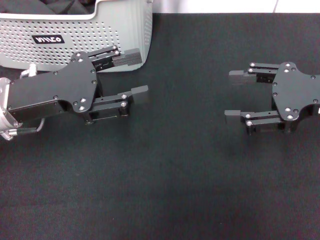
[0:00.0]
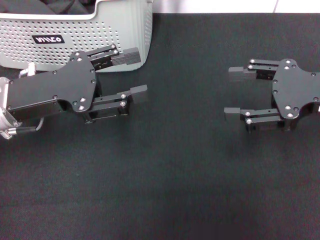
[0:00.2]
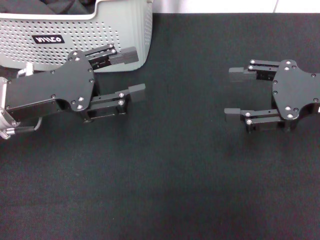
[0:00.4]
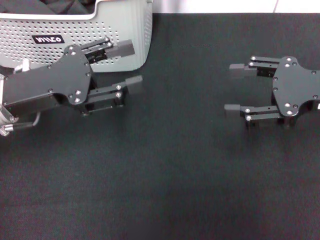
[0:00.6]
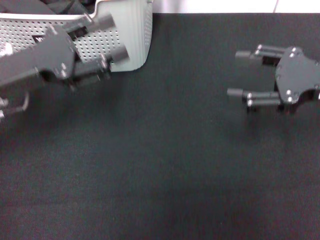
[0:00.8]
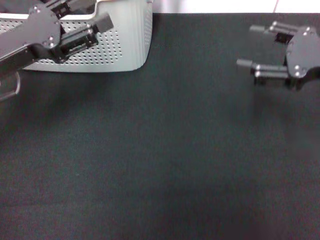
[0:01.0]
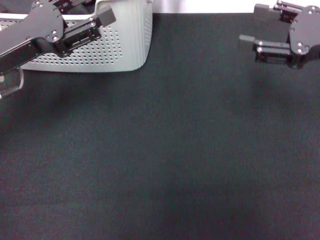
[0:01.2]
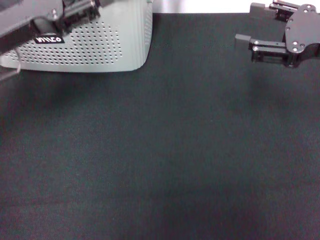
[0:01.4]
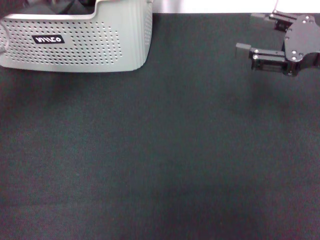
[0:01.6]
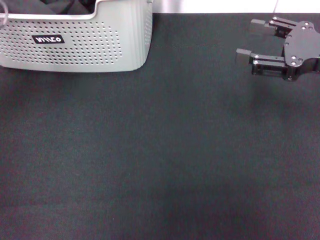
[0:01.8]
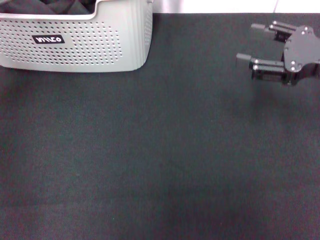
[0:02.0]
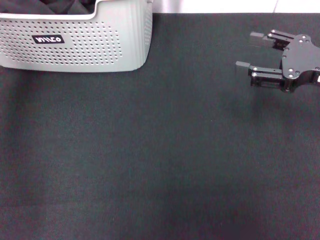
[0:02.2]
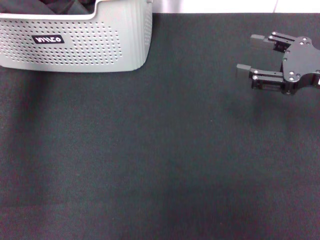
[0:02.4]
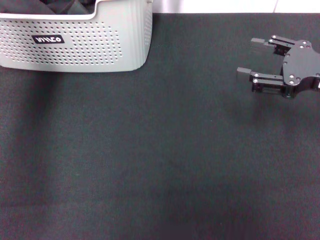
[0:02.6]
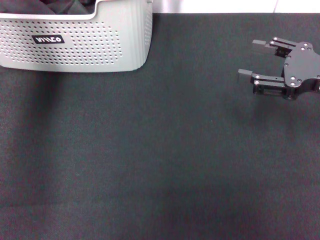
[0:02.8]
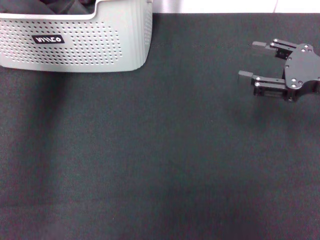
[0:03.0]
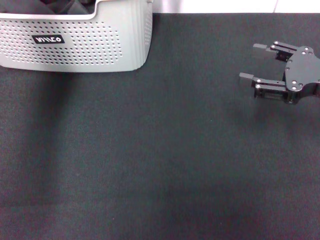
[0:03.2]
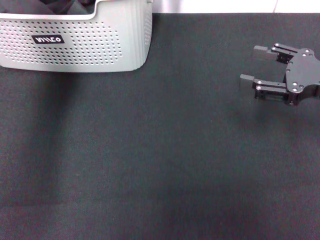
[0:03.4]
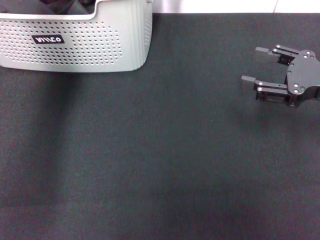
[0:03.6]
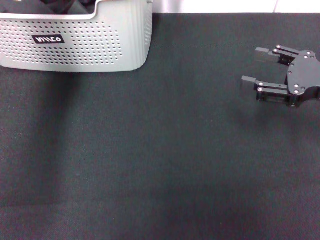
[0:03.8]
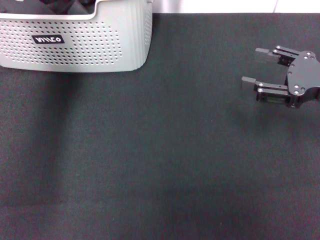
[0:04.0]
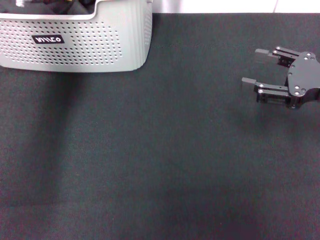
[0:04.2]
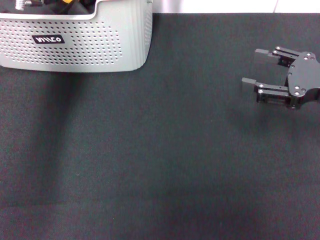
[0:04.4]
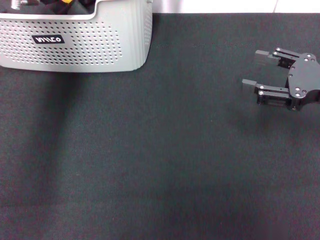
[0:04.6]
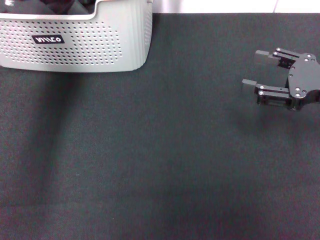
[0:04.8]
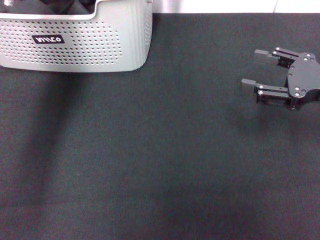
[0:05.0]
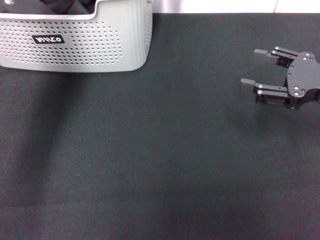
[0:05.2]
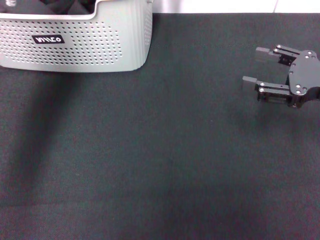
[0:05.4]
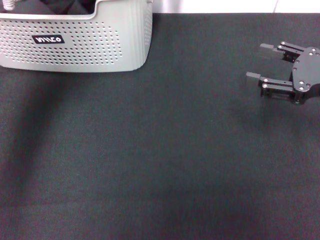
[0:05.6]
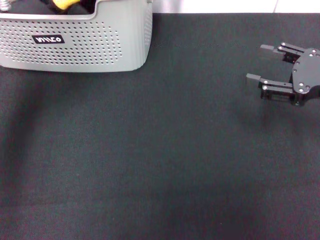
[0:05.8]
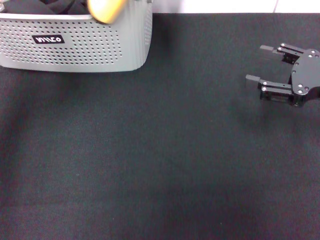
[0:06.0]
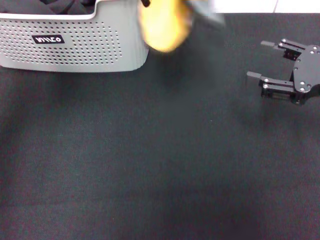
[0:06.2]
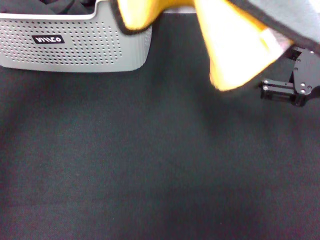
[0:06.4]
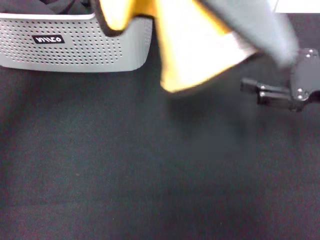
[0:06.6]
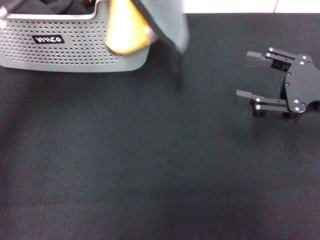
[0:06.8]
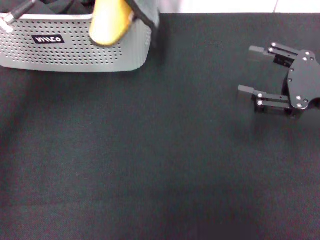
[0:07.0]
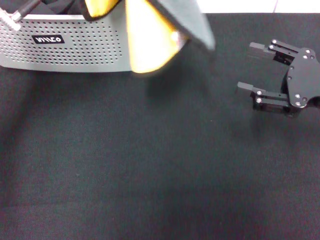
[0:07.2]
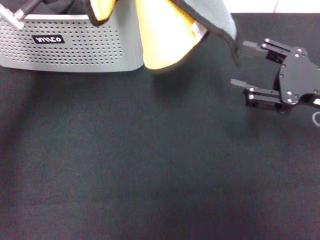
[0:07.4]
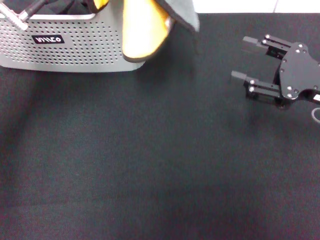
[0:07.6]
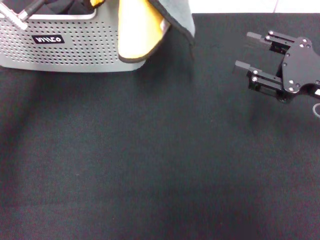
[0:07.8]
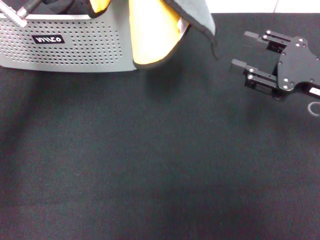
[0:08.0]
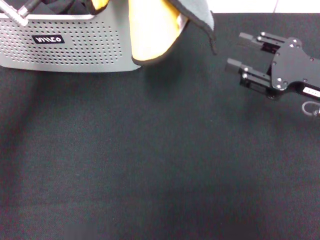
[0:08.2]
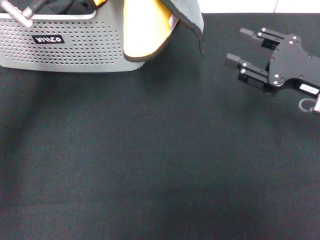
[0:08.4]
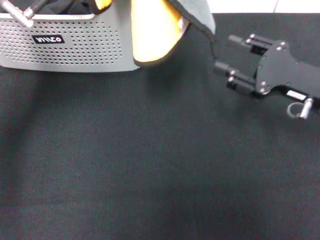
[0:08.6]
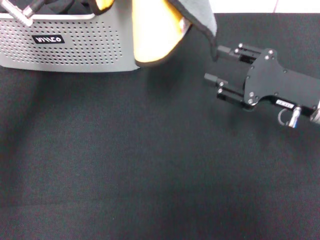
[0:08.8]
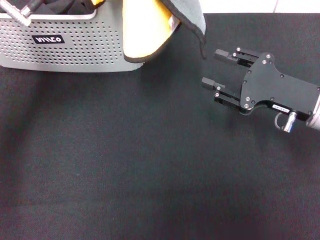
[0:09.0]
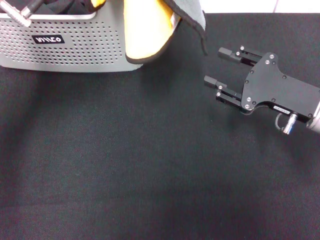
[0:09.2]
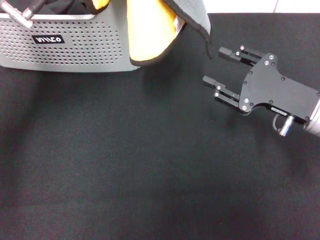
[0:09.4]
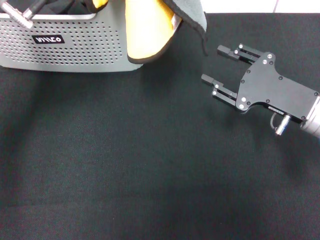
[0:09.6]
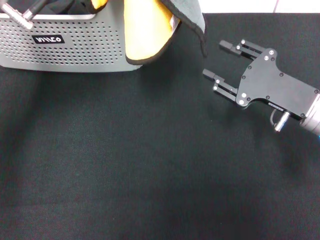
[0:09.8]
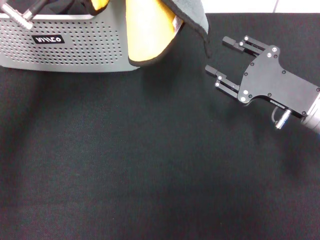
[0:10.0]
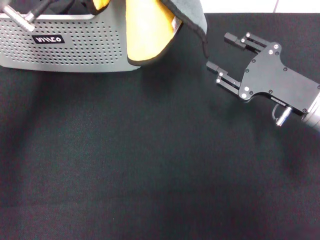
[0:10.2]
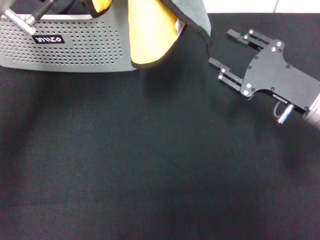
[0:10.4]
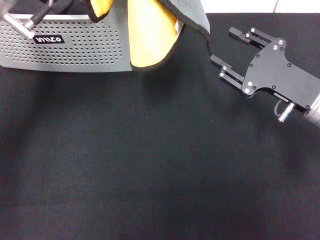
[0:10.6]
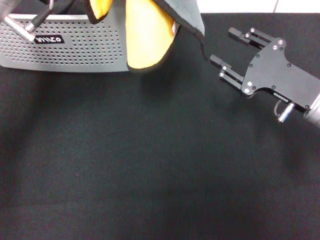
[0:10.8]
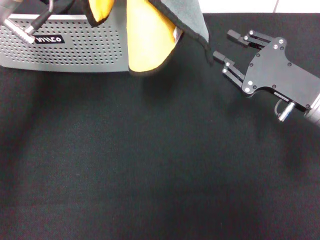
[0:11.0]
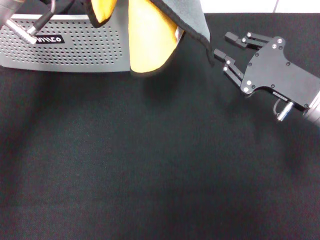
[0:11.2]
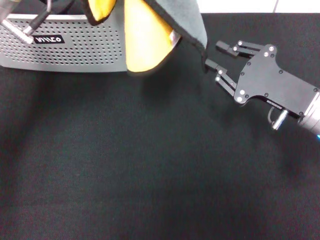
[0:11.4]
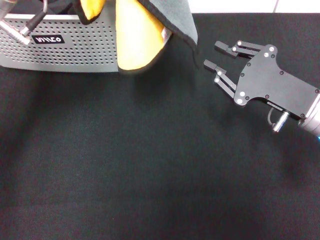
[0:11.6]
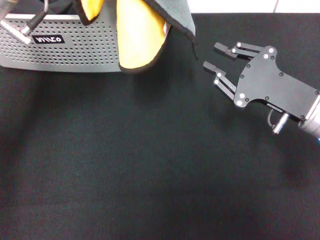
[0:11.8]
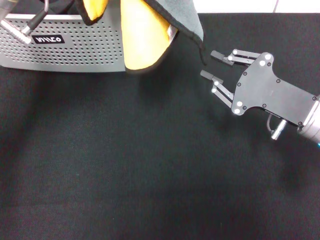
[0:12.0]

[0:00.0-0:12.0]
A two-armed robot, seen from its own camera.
Task of the whole recording: pick up the towel from the storage box and lay it flat on the black tablecloth.
Step, 0:00.0 to 0:04.6: Pick up a towel with the left gripper.
0:00.0 to 0:01.6: The left gripper travels upward and forward by some 10 cm.
0:01.6 to 0:03.0: The left gripper moves forward, upward and to the right, some 15 cm.
0:03.0 to 0:04.4: The left gripper closes.
0:04.4 to 0:06.0: The left gripper shifts about 15 cm backward and upward.
0:06.0 to 0:07.6: The left gripper shifts approximately 5 cm downward.
0:07.6 to 0:09.0: The right gripper shifts by roughly 5 cm.
0:09.0 to 0:12.0: There are only small adjustments of the grippers.

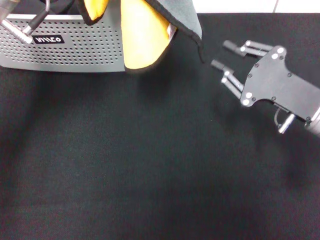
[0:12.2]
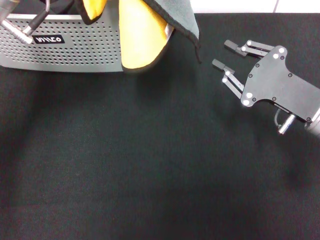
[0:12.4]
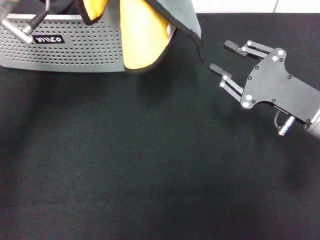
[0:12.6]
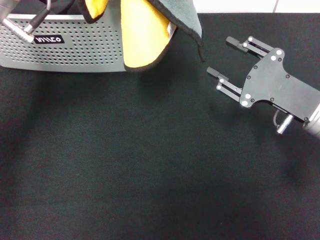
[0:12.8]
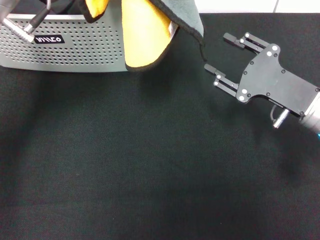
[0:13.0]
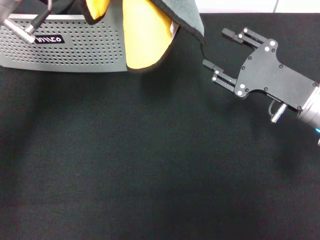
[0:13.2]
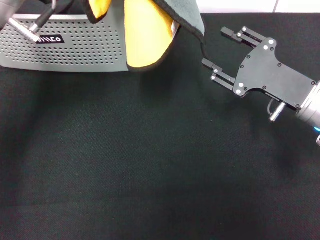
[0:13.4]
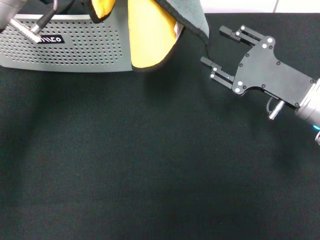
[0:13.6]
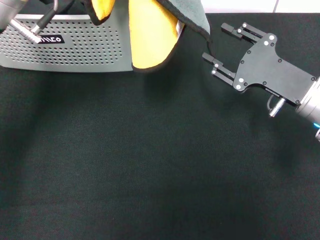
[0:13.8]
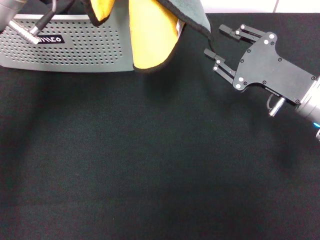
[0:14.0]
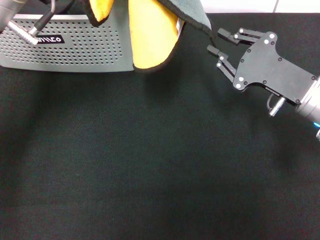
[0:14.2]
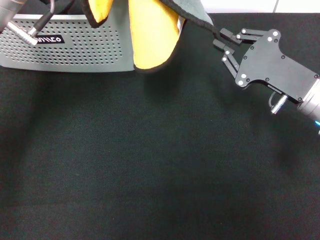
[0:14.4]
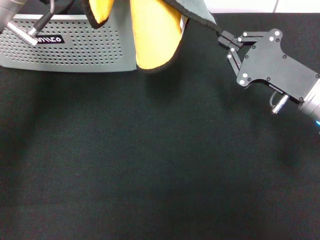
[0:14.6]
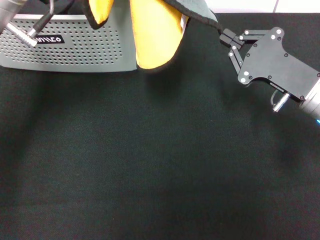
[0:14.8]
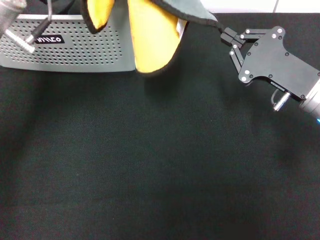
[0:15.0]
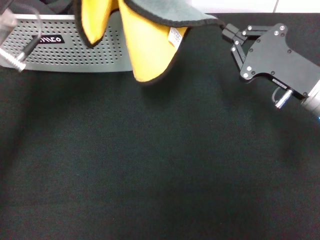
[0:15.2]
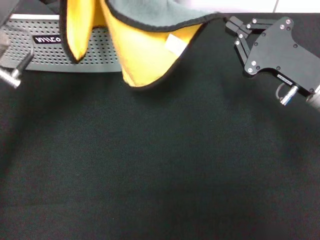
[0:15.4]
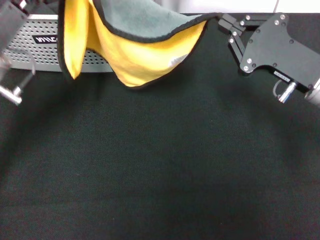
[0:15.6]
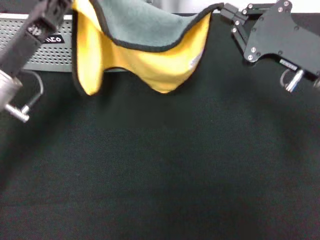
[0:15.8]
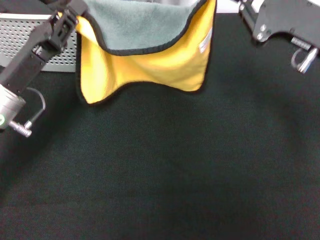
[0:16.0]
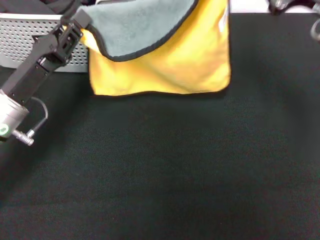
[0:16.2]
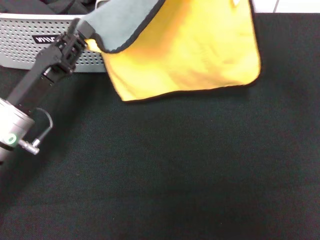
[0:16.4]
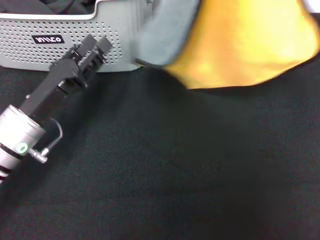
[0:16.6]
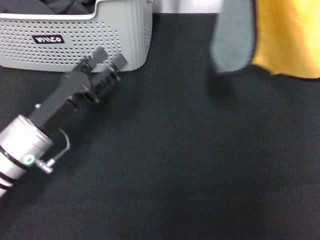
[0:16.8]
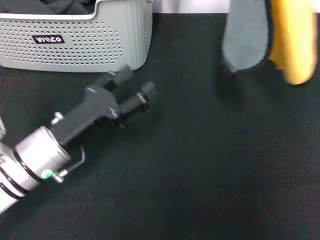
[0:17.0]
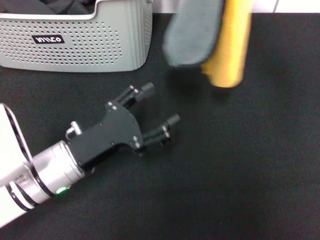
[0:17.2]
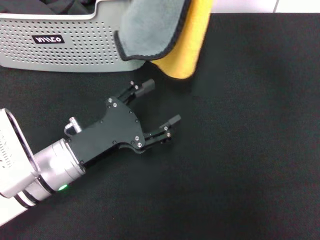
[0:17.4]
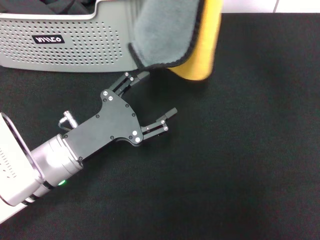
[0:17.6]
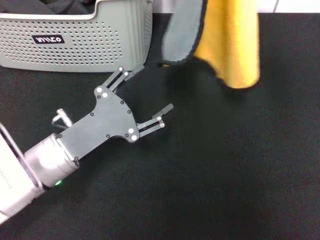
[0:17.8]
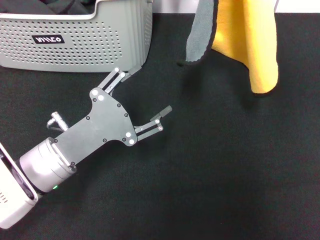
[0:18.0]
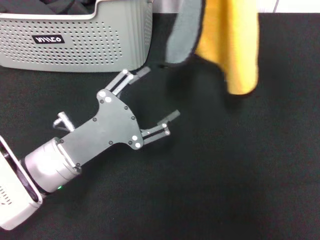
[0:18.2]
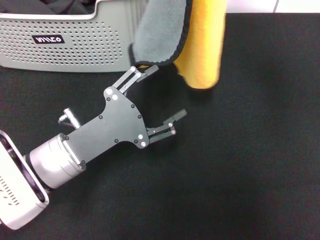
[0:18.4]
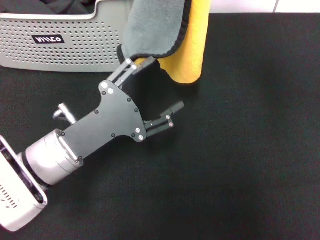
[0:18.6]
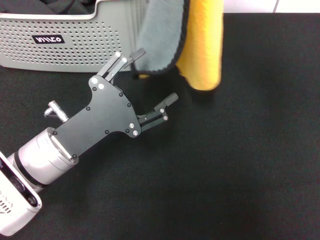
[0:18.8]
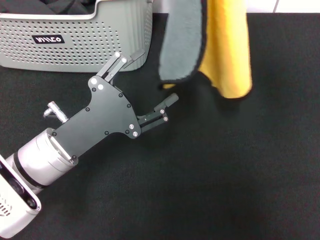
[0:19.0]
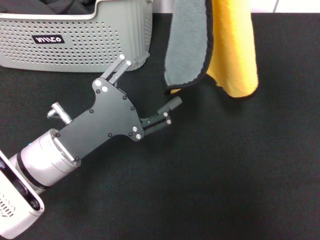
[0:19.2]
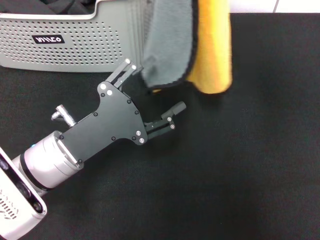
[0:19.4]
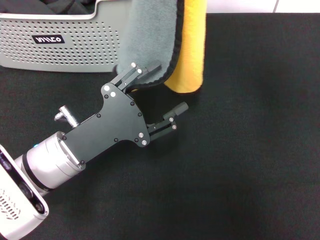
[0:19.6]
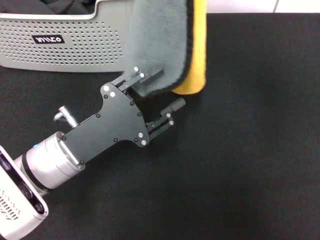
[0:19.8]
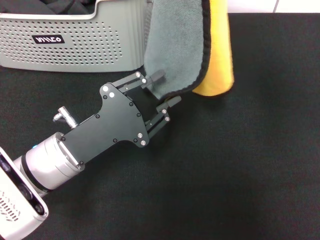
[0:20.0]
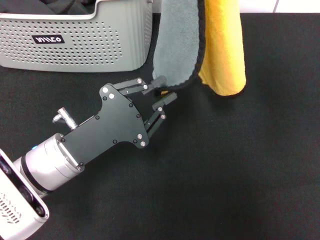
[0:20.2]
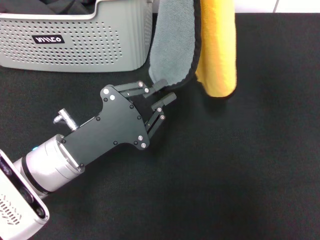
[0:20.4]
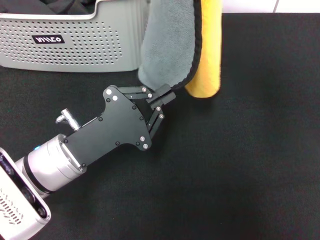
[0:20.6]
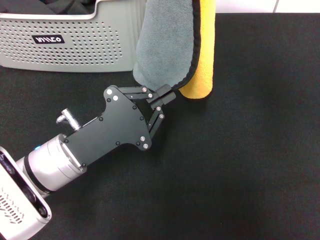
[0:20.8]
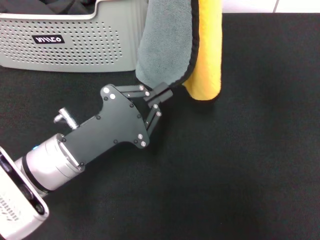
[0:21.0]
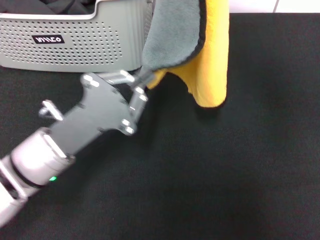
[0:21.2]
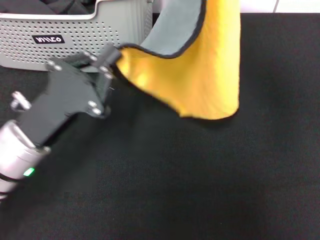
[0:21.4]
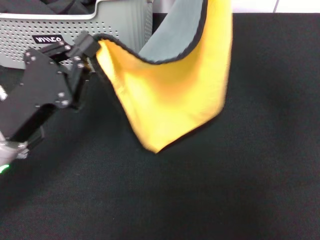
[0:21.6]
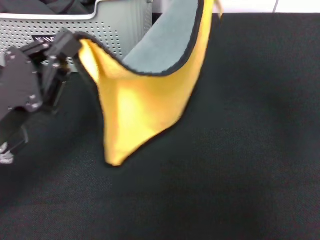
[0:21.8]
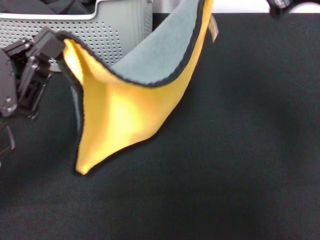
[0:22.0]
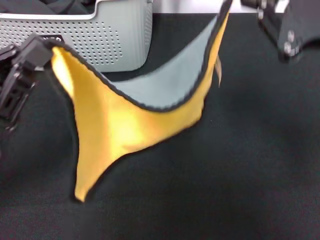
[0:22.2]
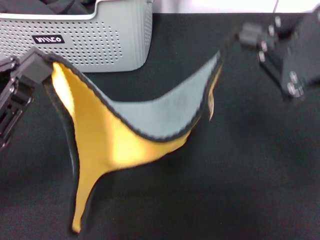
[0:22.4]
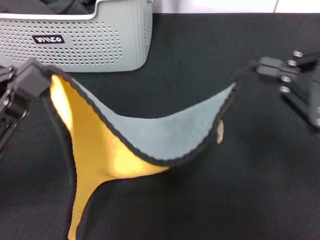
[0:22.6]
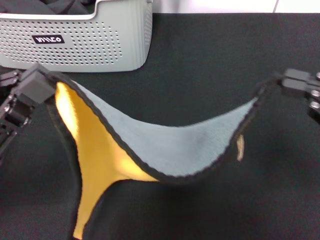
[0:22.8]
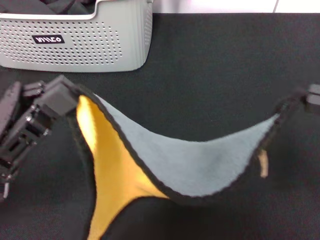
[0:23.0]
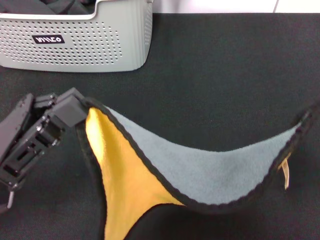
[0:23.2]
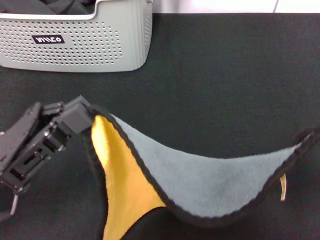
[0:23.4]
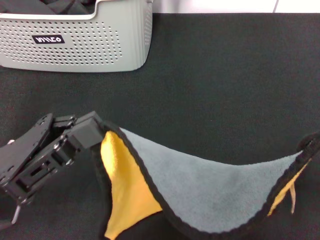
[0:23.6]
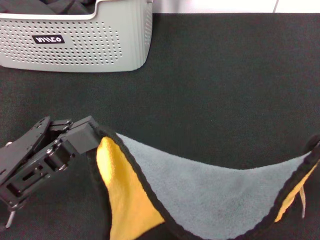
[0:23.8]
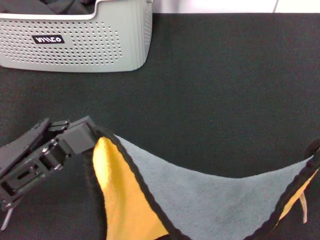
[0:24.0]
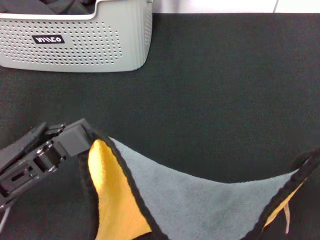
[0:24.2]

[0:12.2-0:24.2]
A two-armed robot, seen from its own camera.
Task of the whole recording: pick up the towel from the storage box and lay it flat on the black tablecloth.
Step, 0:12.2 to 0:14.8: Spread the towel flat with the left gripper.
0:12.2 to 0:13.8: There are only small adjustments of the grippers.
0:13.8 to 0:15.2: The right gripper closes its fingers.
0:15.2 to 0:16.6: The left gripper shifts some 15 cm downward, and opens its fingers. Meanwhile the right gripper heads upward, covering about 20 cm.
0:16.6 to 0:18.2: The left gripper shifts by approximately 5 cm, and opens its fingers.
0:19.8 to 0:21.2: The left gripper closes its fingers.
0:21.2 to 0:22.6: The left gripper is displaced to the left and upward by about 10 cm, while the right gripper shifts some 15 cm backward, downward and to the right.
0:22.6 to 0:24.2: The right gripper goes approximately 10 cm backward and to the right.
